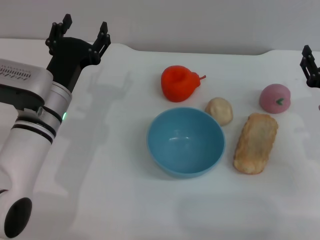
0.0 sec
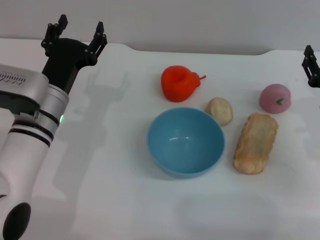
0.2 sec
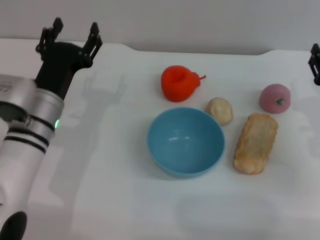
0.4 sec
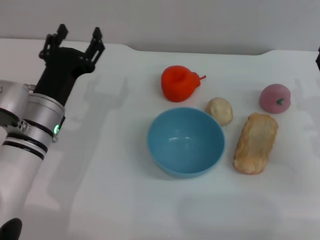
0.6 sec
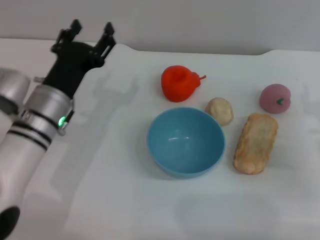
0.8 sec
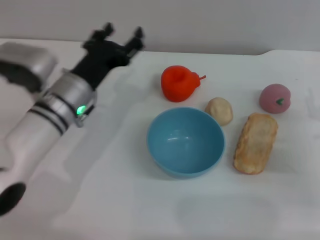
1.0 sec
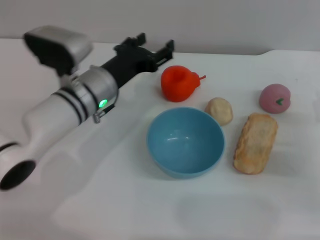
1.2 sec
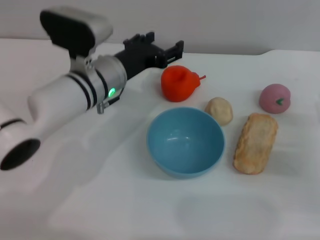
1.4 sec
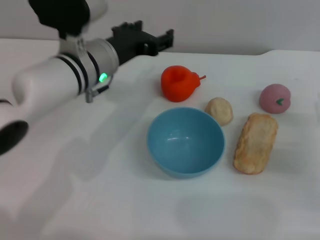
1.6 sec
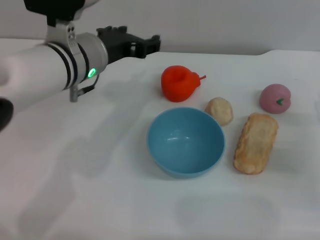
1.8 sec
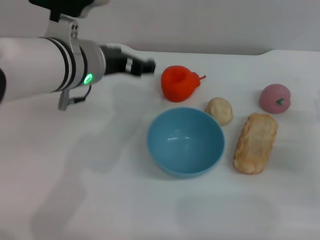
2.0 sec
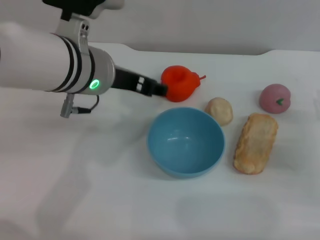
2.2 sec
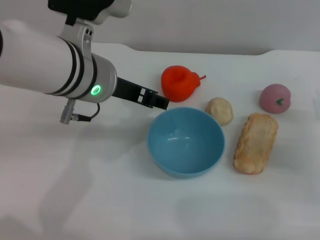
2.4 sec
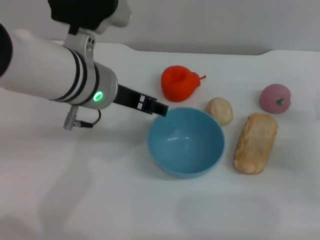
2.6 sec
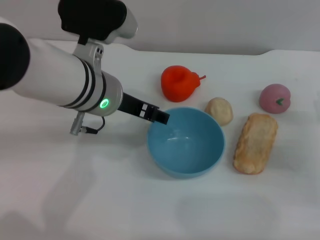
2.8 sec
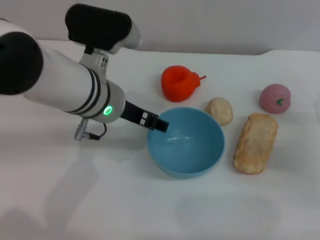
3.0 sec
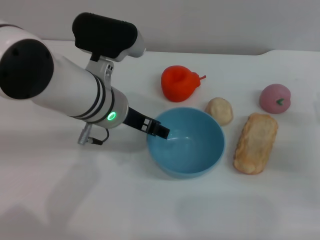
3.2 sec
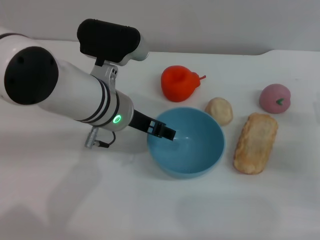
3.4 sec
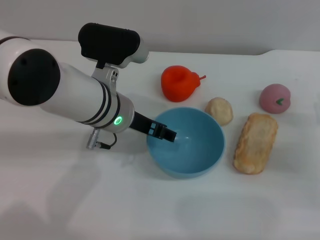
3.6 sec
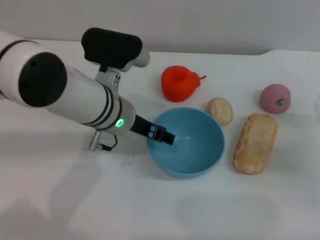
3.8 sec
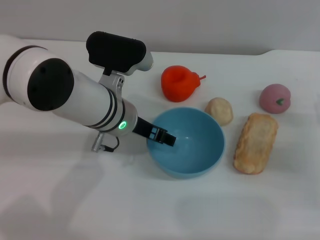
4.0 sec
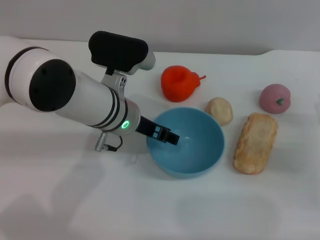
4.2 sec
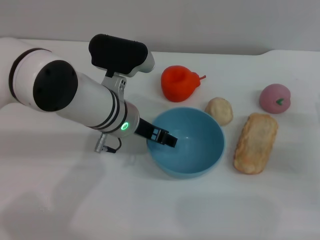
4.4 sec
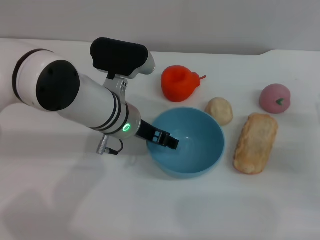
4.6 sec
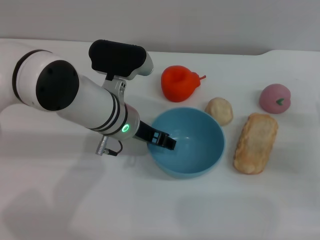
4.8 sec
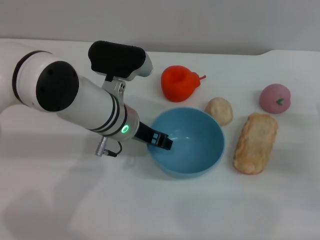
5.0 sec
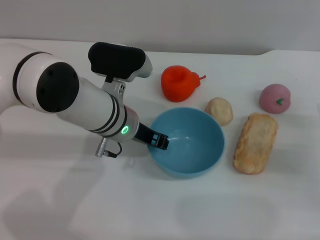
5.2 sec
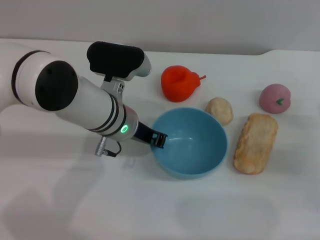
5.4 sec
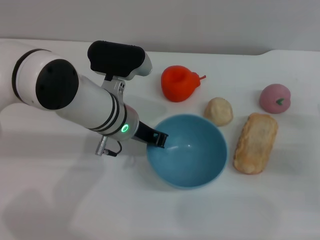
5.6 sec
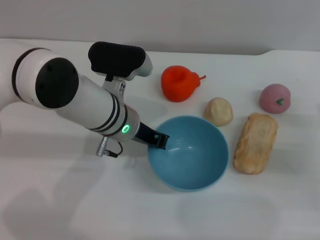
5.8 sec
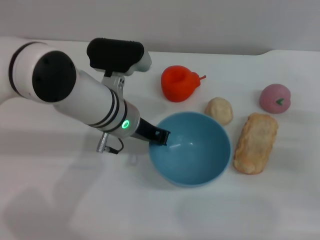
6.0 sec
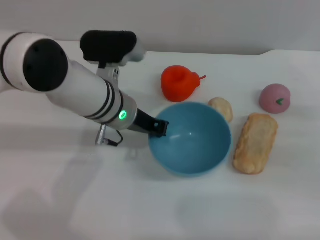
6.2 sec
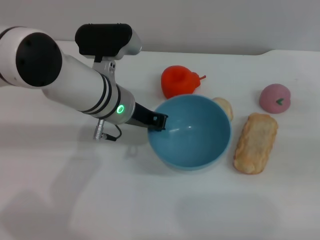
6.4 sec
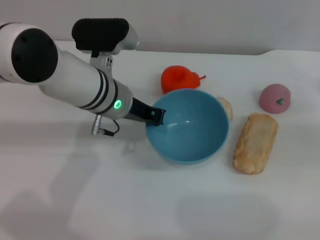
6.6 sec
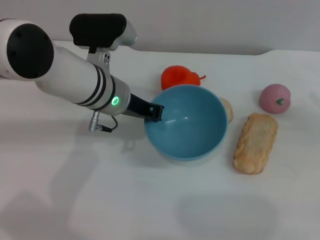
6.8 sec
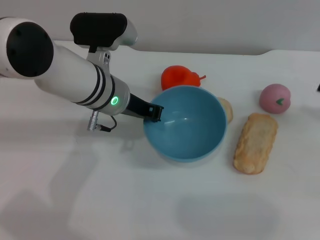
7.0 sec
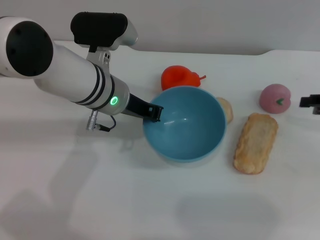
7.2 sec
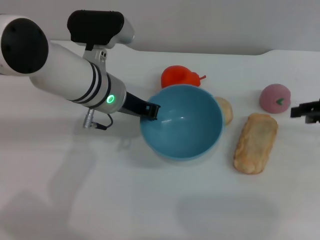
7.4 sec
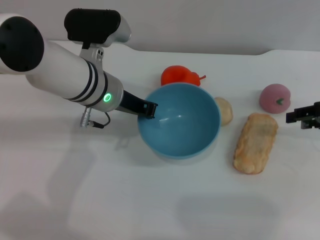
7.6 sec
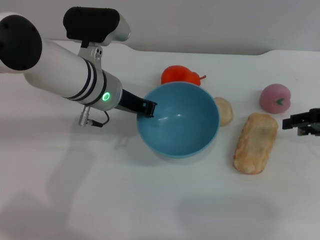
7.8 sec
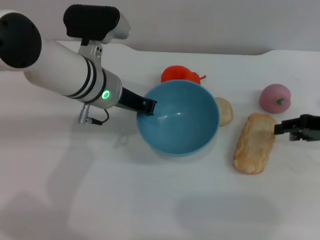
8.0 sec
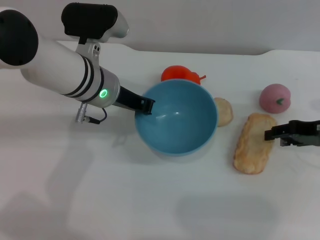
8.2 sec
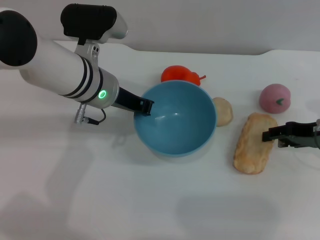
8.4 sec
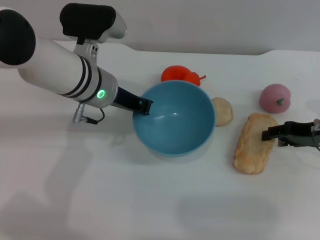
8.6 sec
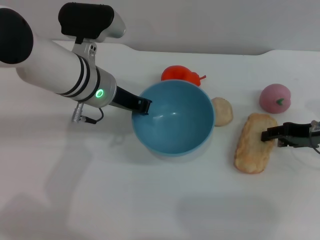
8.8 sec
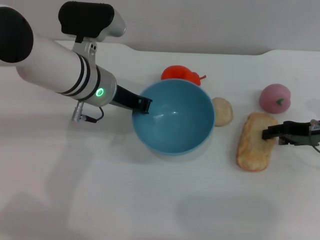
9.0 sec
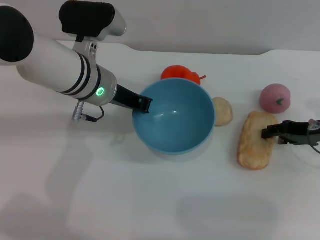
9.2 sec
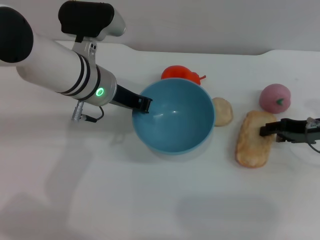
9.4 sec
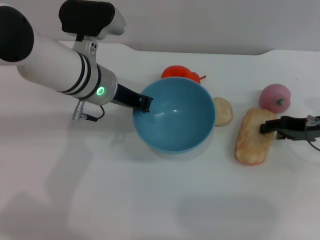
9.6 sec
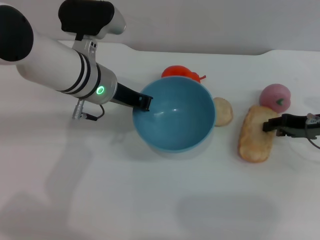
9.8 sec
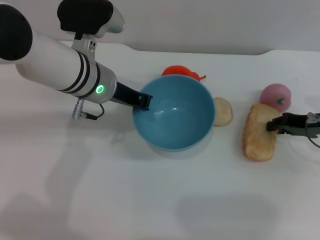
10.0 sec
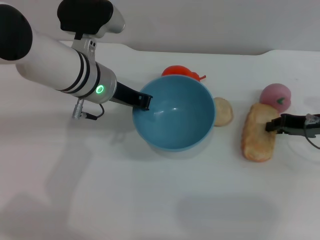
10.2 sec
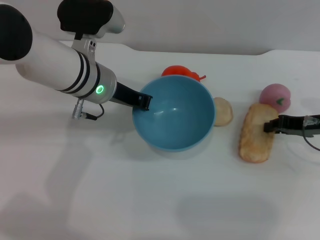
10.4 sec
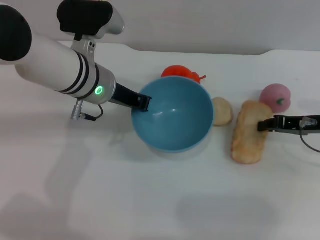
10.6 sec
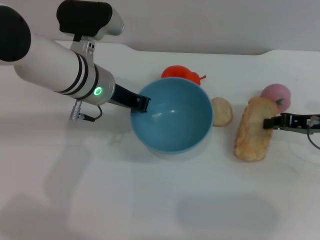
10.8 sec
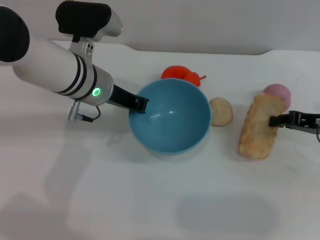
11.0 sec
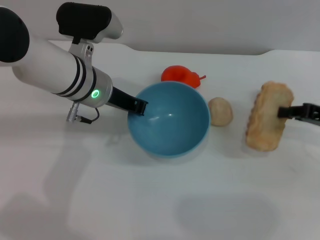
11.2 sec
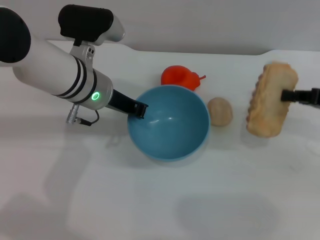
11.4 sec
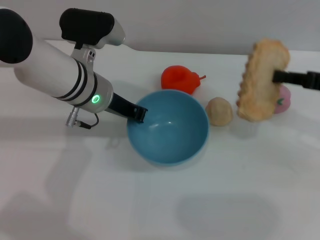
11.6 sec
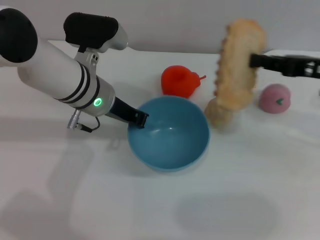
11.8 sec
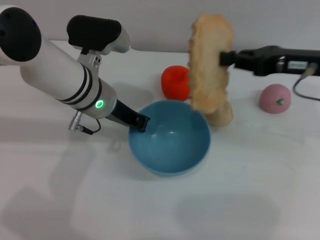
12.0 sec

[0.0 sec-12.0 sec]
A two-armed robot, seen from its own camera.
Task of the whole recording: put the bread into the blue bowl and pour it out repeatedly.
Step, 0.0 sec to 6.4 sec: Pick up the bowl with the left gripper.
Step, 6.8 sec to 11.4 sec: Pick up the bread with the right gripper.
0.0 sec to 1.6 sec: The left gripper is displaced upward and to the right by some 10 cm; the right gripper moves roughly 5 cm.
3.0 sec to 4.4 sec: The left gripper shifts roughly 5 cm downward.
4.4 sec to 6.0 sec: The left gripper closes up.
6.0 sec to 7.6 sec: The right gripper goes some 10 cm upward and forward.
7.6 sec to 9.0 sec: The right gripper goes roughly 5 cm downward.
9.0 sec to 10.4 sec: The right gripper closes its fingers.
10.4 sec to 12.0 sec: The right gripper moves upward, approximately 10 cm.

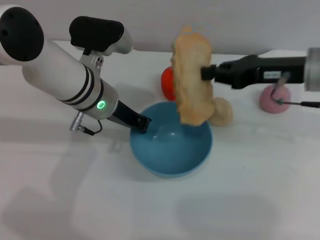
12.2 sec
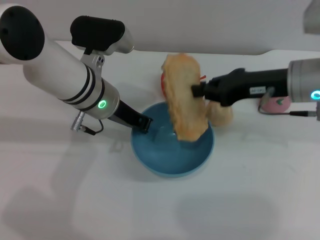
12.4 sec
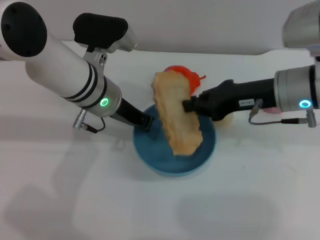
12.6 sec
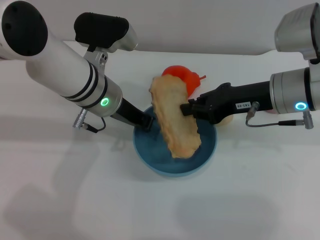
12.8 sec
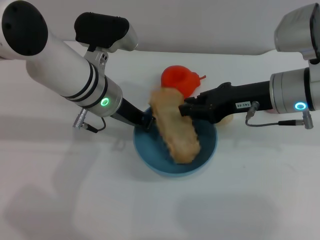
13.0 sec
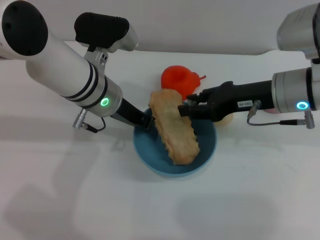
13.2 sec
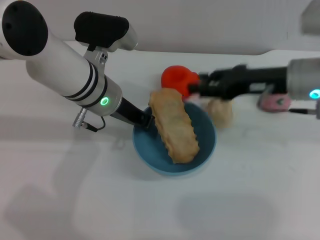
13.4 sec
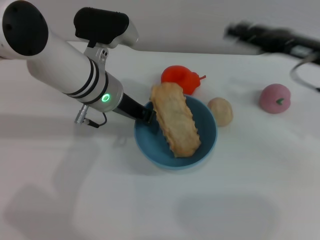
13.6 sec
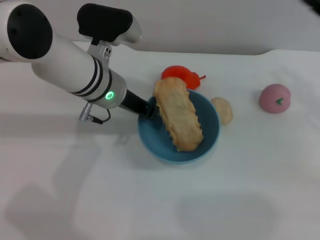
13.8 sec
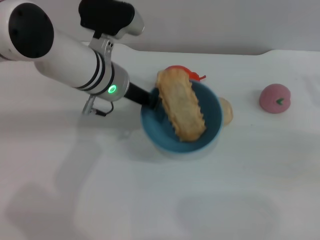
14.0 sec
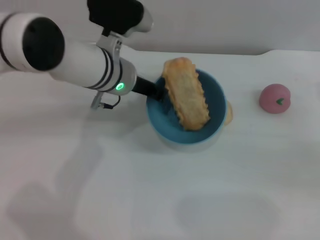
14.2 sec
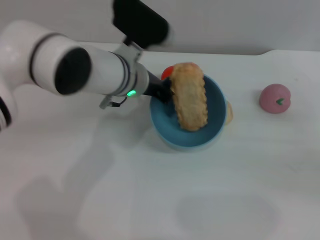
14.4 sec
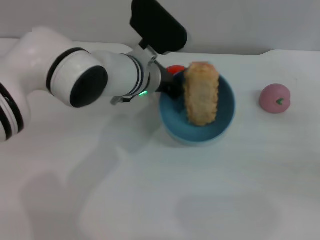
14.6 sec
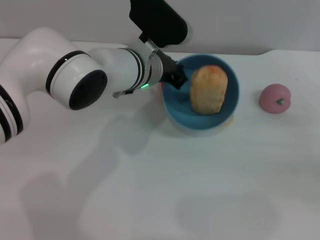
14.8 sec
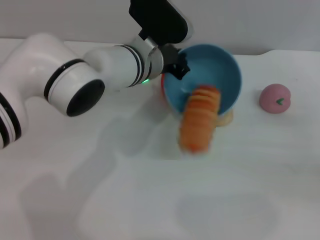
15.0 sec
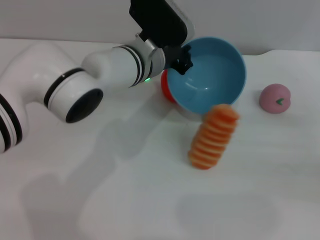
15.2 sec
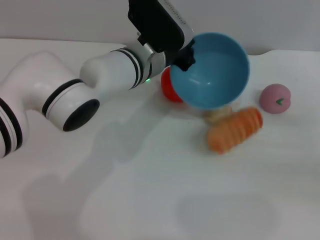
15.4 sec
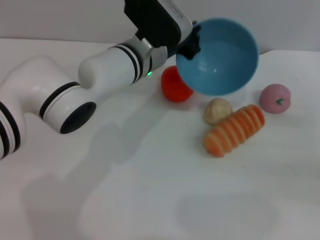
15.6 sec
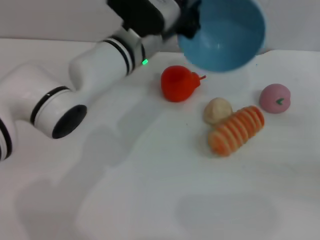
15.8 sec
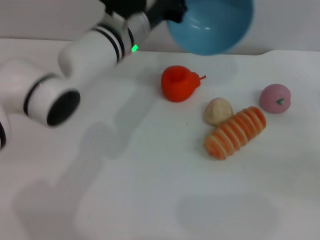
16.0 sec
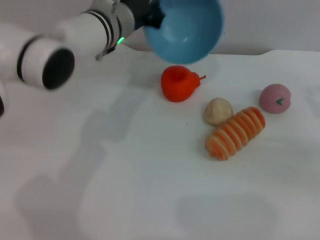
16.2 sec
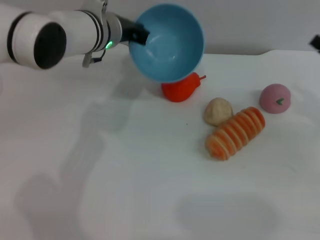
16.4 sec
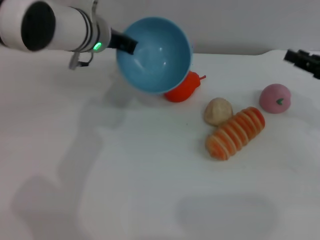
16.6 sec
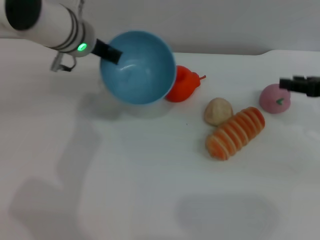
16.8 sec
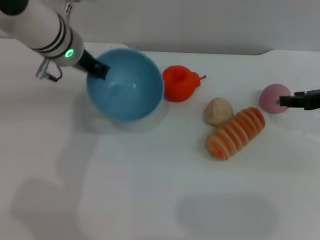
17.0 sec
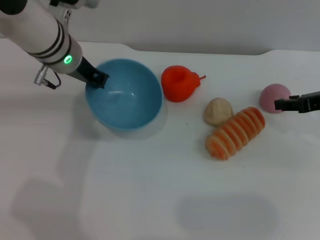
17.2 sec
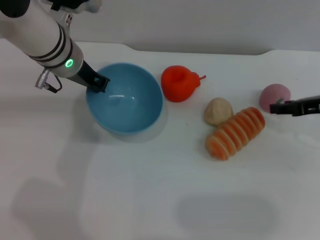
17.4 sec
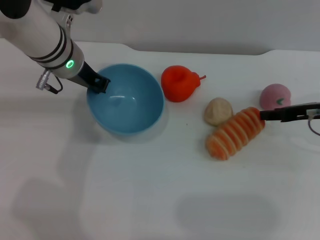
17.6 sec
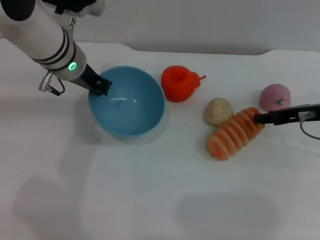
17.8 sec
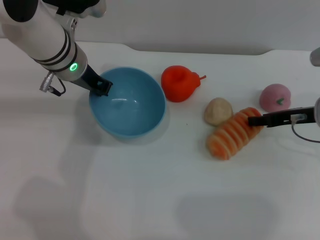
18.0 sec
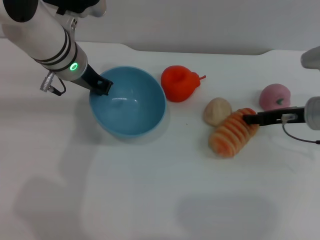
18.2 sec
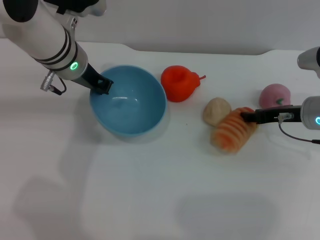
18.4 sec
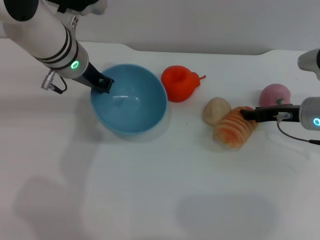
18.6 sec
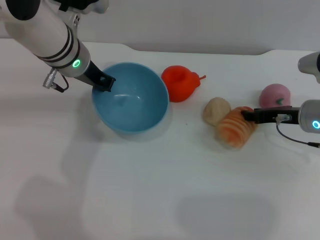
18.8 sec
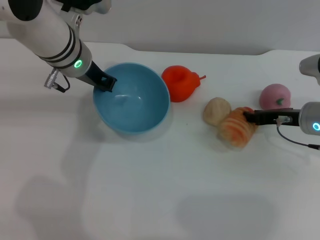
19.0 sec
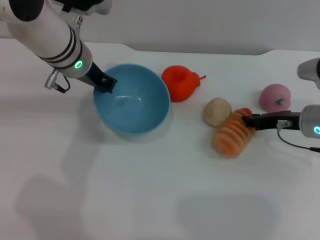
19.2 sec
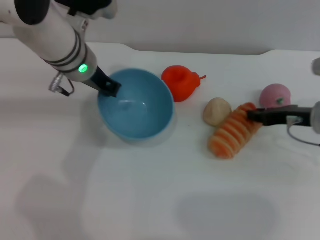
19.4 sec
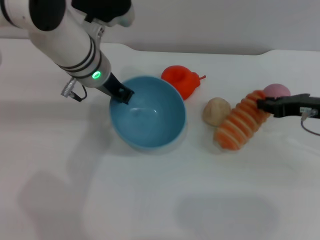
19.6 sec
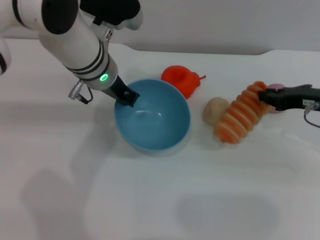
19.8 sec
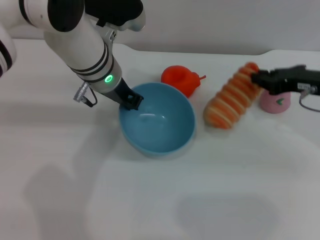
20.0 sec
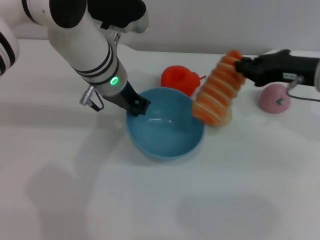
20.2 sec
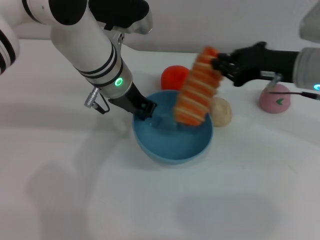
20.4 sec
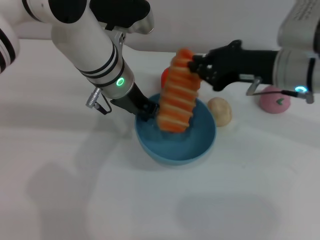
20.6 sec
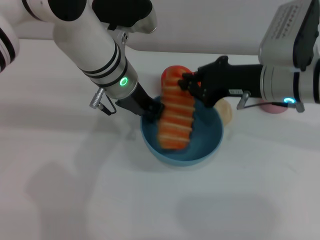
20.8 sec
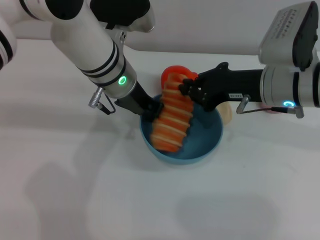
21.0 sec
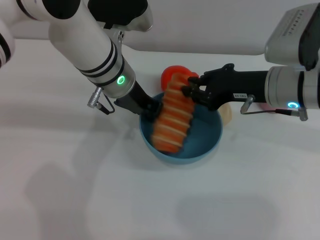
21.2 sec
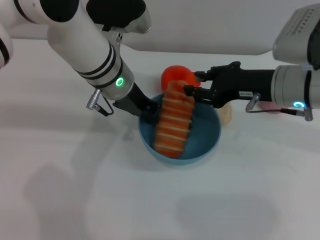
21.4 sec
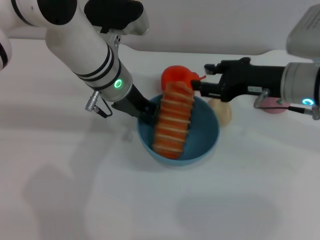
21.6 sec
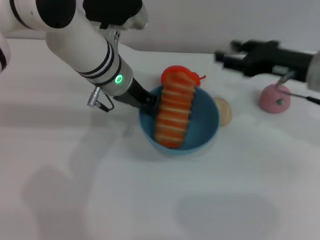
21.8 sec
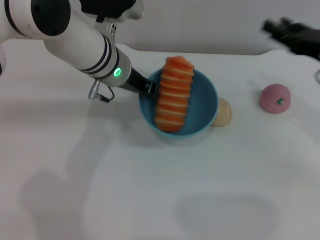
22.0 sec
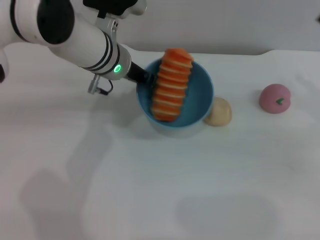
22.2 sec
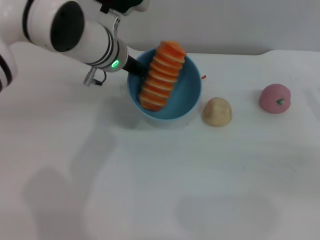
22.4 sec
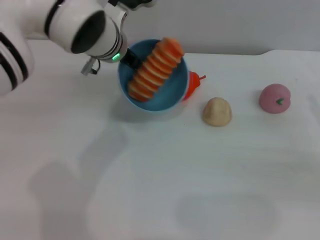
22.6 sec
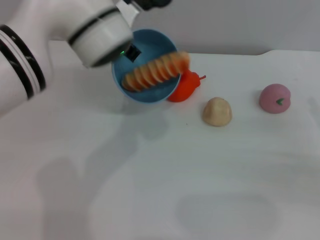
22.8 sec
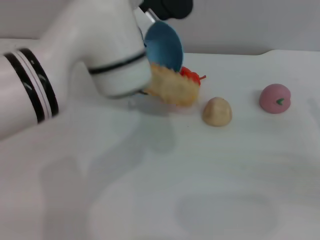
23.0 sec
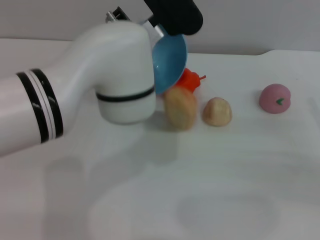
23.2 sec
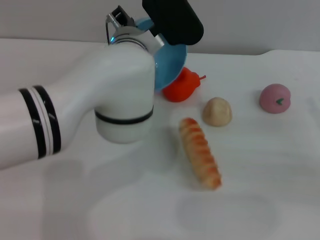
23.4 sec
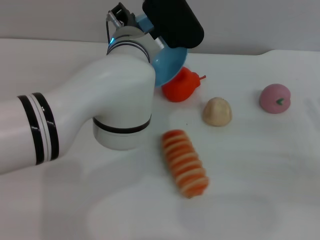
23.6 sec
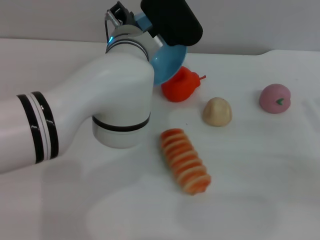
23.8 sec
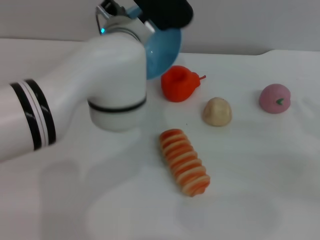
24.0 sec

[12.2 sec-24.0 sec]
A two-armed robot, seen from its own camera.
Task of the whole recording: put the bread into the blue bowl and pour it out repeatedly.
Step, 12.2 sec to 13.6 sec: Place the bread into the bowl.
Step, 13.8 sec to 15.6 sec: Pour the bread out of the bowl.
Step, 15.8 sec to 19.8 sec: Pick up the bread with the right gripper.
Step, 20.2 sec to 21.8 sec: Place the bread into the bowl.
Step, 22.0 sec to 24.0 sec: Pour the bread out of the bowl.
12.2 sec to 13.6 sec: The right gripper opens its fingers.
13.6 sec to 15.2 sec: The right gripper travels to the right, downward and backward by approximately 20 cm; the left gripper travels to the right by roughly 5 cm.
15.2 sec to 16.6 sec: The left gripper heads to the left, covering some 10 cm, while the right gripper goes some 10 cm forward and upward.
16.6 sec to 18.2 sec: The right gripper heads to the left and downward, covering roughly 10 cm.
18.2 sec to 19.6 sec: The right gripper closes.
19.6 sec to 21.0 sec: The right gripper is displaced to the left and upward by approximately 10 cm.
21.0 sec to 22.6 sec: The right gripper moves to the right and backward, approximately 20 cm, and opens its fingers.
